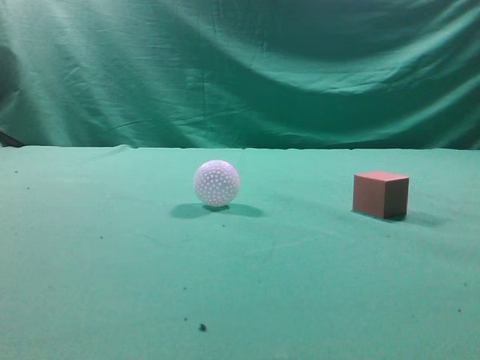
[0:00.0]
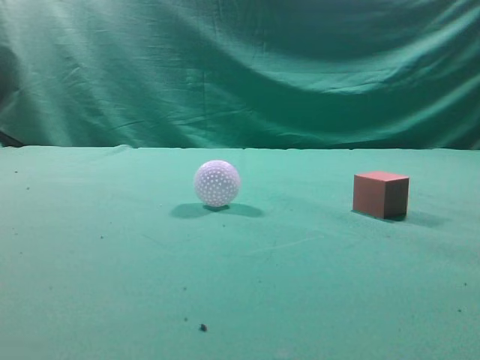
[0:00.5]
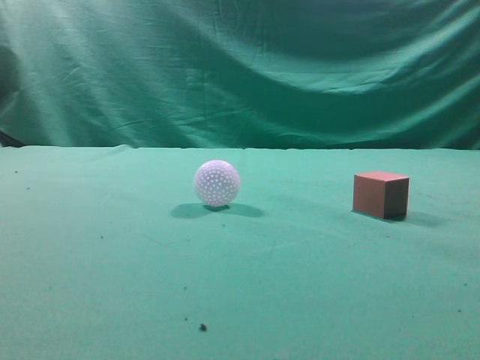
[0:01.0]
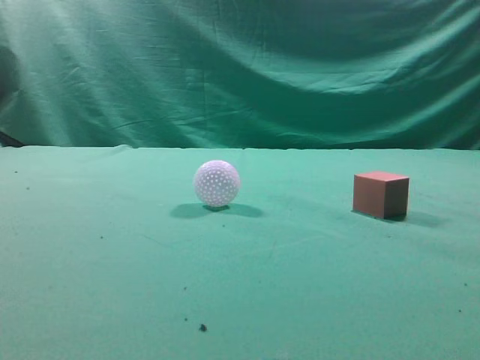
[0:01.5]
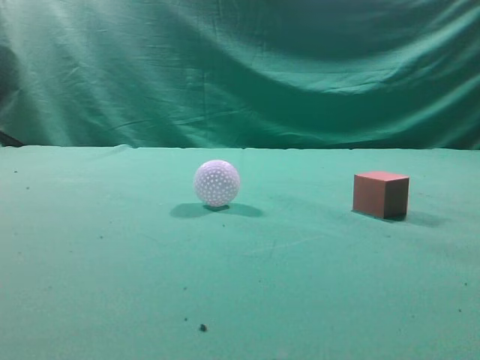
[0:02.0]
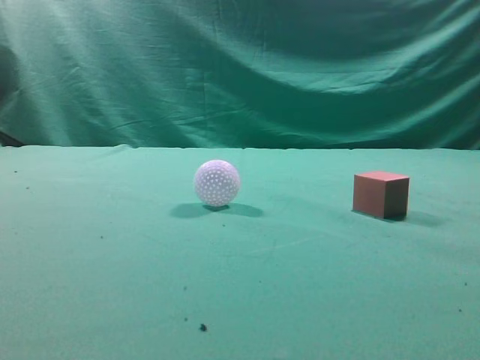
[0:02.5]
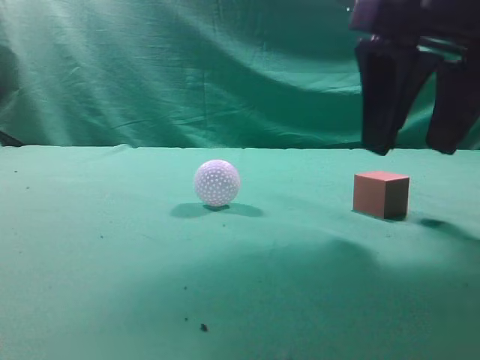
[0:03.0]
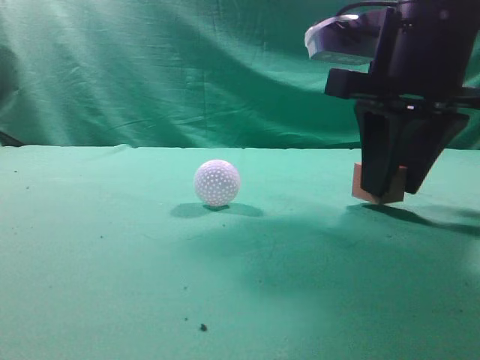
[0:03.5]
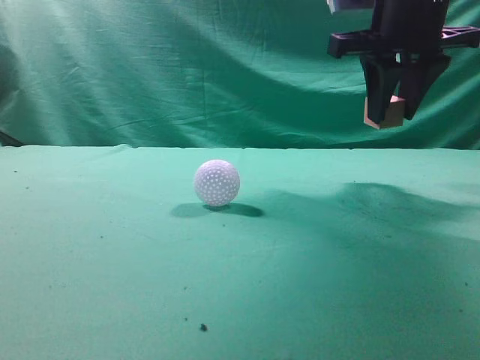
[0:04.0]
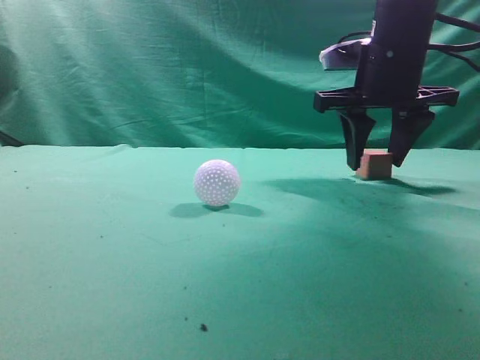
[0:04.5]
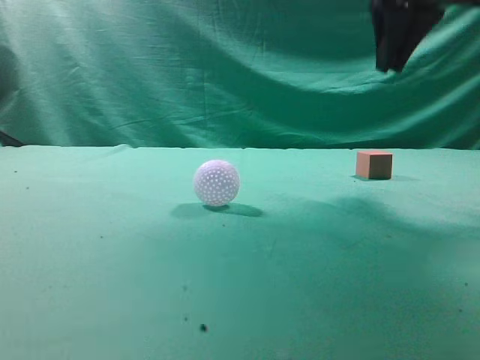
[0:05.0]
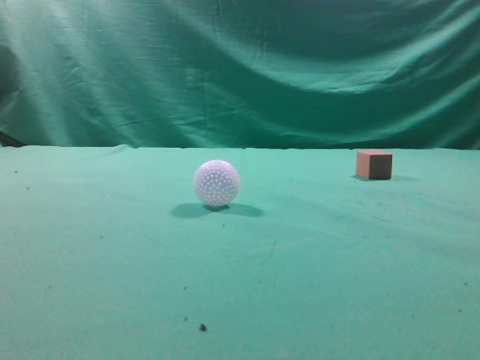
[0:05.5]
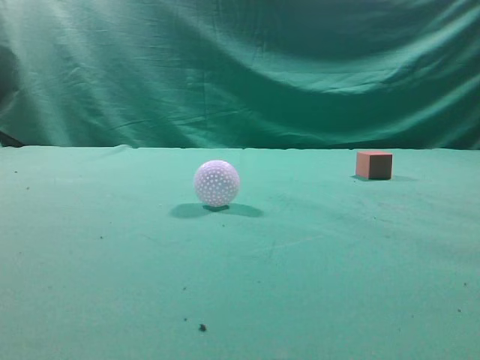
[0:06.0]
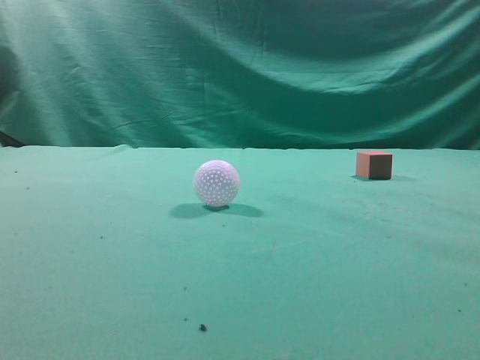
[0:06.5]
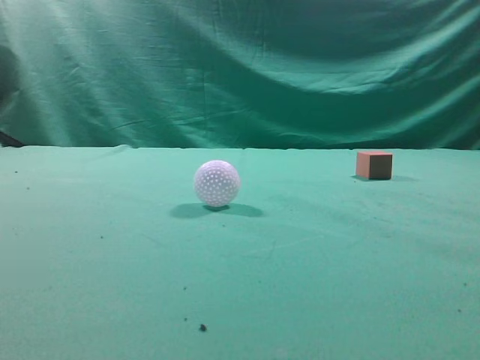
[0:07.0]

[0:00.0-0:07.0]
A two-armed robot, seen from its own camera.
Task of the whole recording: pick up the cube block and place it in another position on the table.
Step, 0:00.0 to 0:03.5: Pick up the small cube.
Step, 0:04.0 to 0:04.5: Place the small cube on the ahead of the table.
0:02.0 to 0:03.5: The right gripper is displaced forward, to the left and downward by roughly 25 cm, and opens its fingers.
0:03.5 to 0:05.0: The right gripper swings up and down, approximately 15 cm each way, with 2 reversals, and closes up.
0:05.0 to 0:07.0: The right gripper shifts about 35 cm backward and downward.
